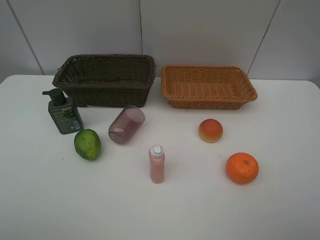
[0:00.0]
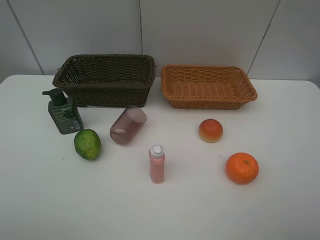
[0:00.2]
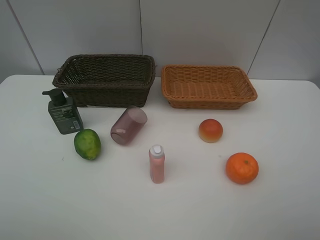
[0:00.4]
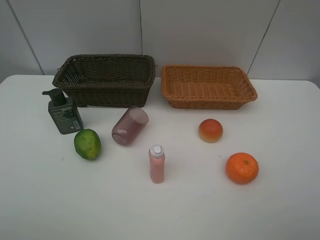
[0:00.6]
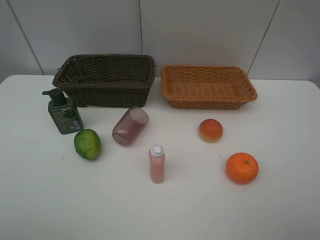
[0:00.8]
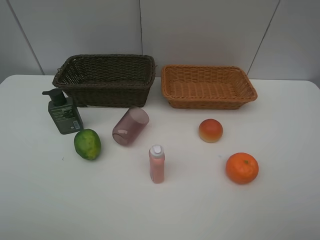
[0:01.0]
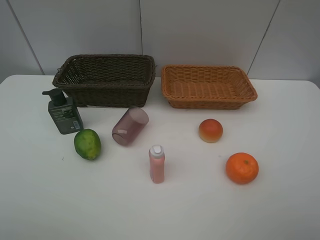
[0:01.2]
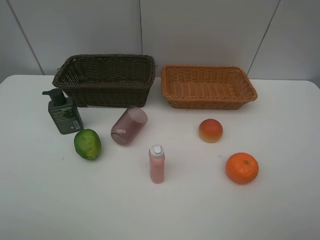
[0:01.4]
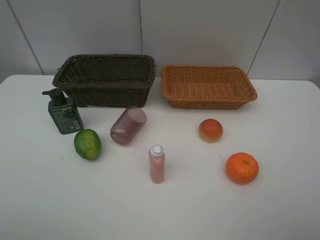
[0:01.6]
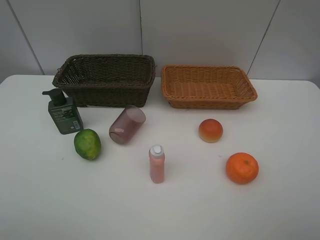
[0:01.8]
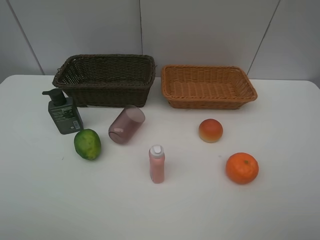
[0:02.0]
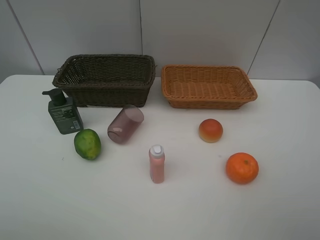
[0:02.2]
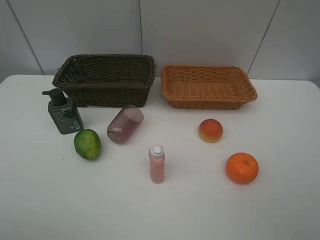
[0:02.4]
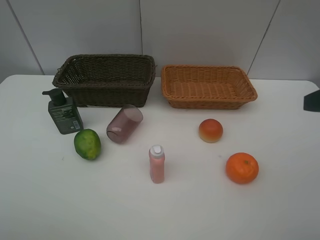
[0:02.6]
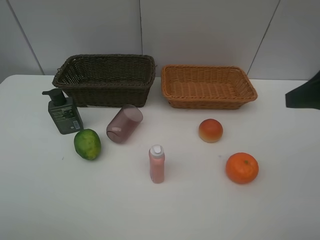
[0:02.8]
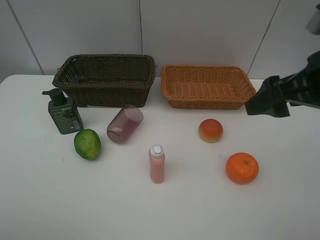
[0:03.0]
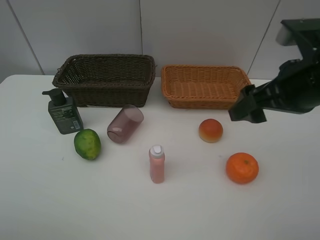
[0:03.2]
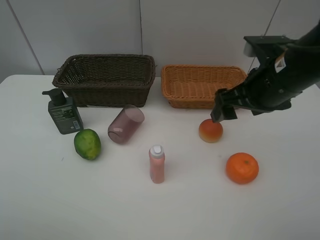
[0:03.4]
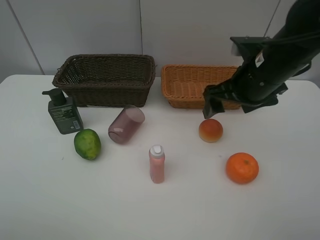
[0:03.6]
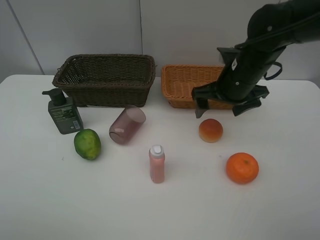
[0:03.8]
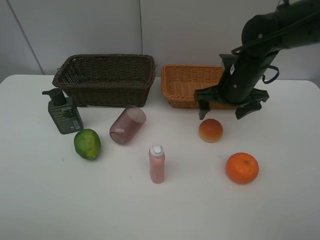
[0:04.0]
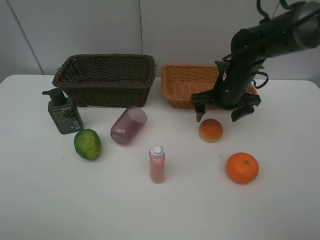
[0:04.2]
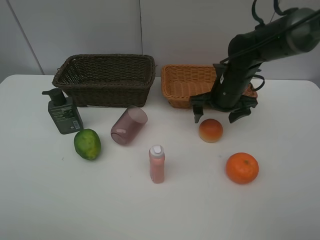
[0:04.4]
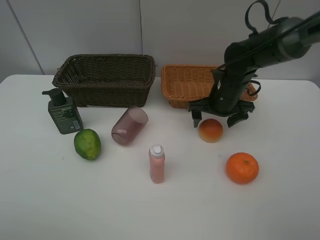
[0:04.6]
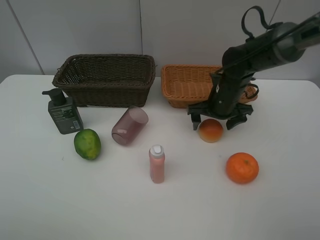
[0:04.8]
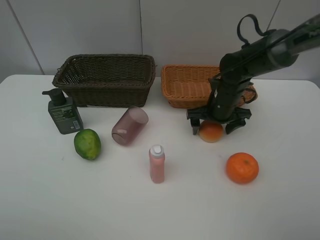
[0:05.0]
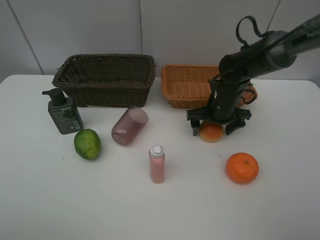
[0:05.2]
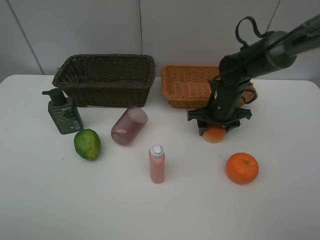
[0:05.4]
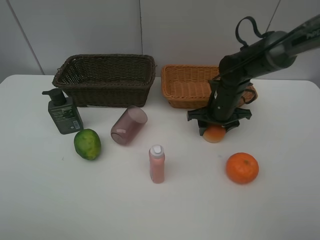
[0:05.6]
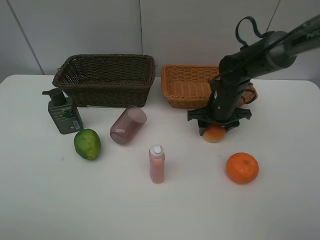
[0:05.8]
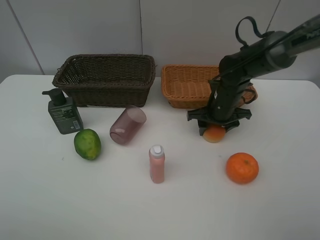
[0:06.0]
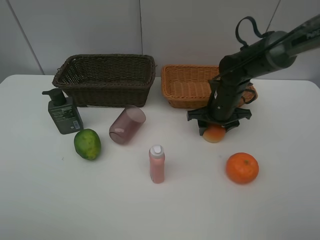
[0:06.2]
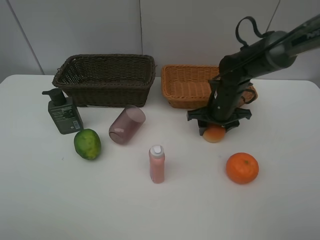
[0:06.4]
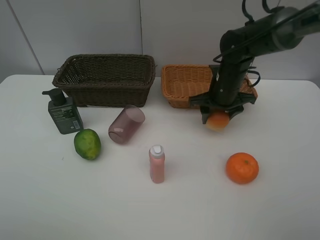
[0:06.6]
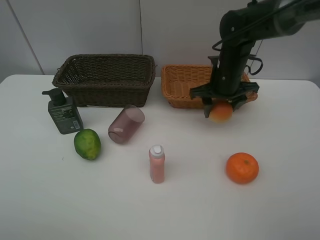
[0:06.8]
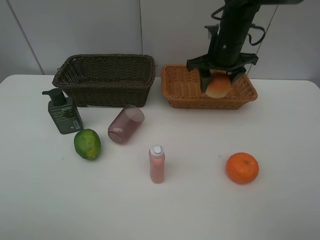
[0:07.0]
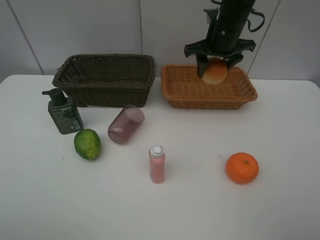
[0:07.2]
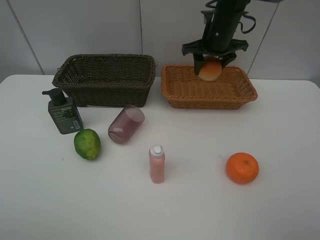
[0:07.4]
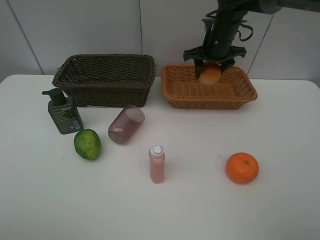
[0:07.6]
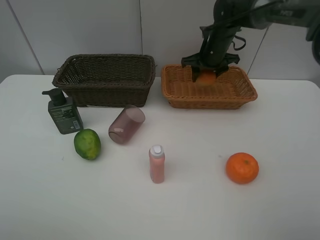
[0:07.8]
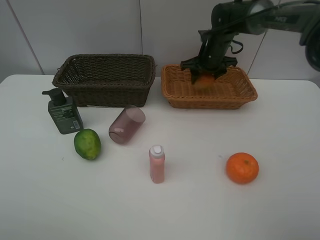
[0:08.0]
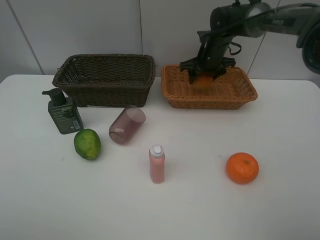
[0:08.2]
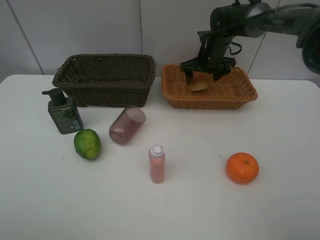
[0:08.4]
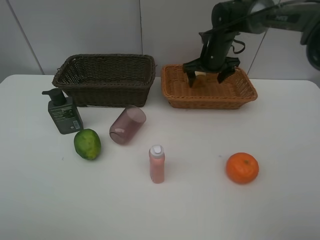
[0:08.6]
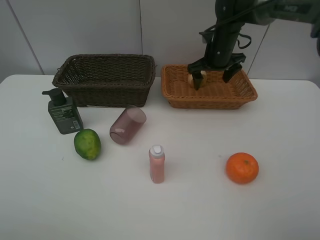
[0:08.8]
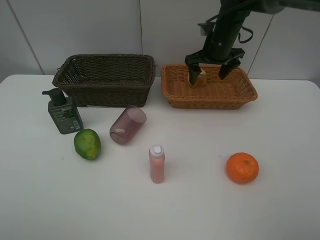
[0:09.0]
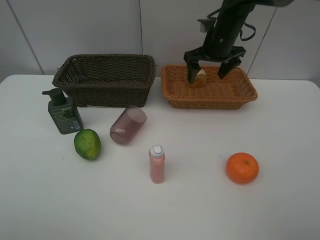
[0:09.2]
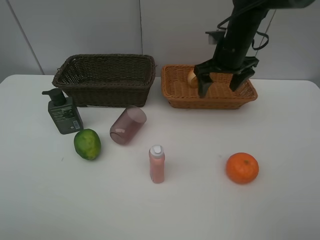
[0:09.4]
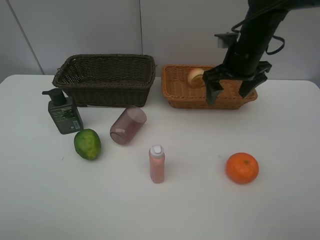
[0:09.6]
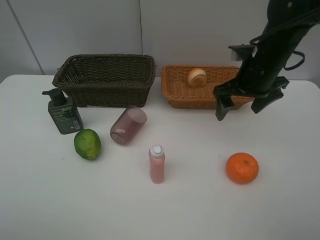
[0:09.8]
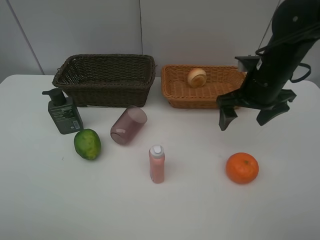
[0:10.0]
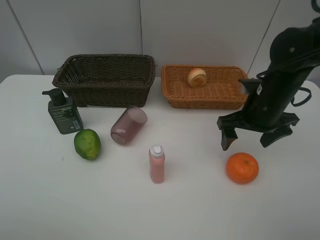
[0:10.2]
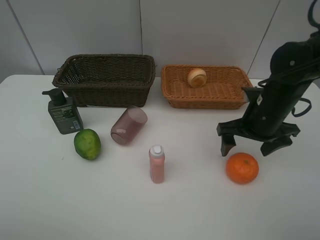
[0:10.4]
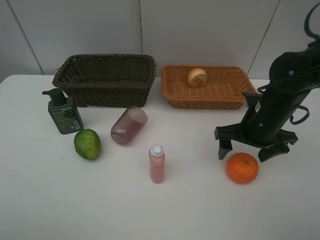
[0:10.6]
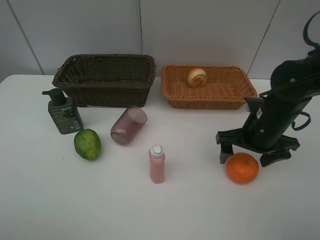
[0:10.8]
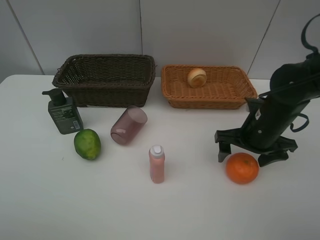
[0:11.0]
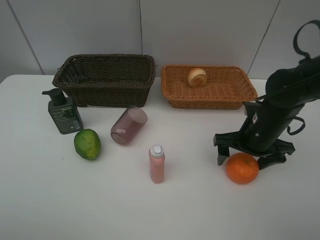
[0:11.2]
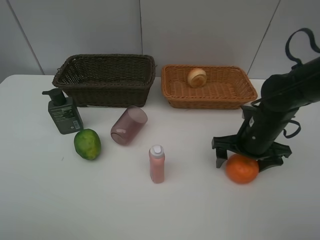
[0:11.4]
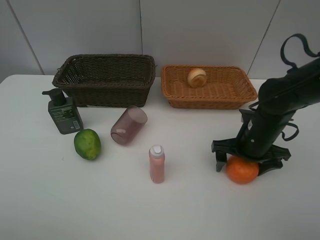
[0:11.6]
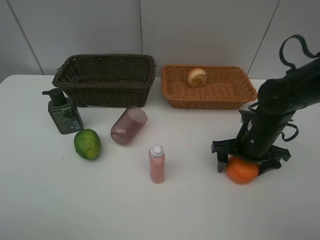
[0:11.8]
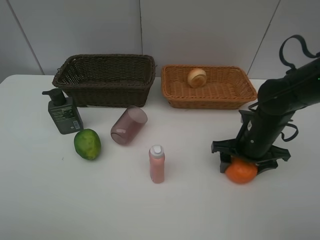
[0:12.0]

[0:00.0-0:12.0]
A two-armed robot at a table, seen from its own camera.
Task of the whole recording: place multiple objects separately in different baskets.
0:00.0 to 0:01.6: Neither gripper changes place.
0:01.6 to 0:03.0: The right gripper heads forward, covering approximately 20 cm.
0:03.0 to 0:04.4: The right gripper travels forward, downward and to the left by some 25 cm.
0:04.4 to 0:06.0: The right gripper closes up.
0:06.0 to 0:07.6: The right gripper is displaced upward and forward by about 15 cm.
0:07.6 to 0:09.0: The right gripper opens up.
0:09.0 to 0:10.4: The right gripper shifts about 20 cm backward.
0:10.4 to 0:12.0: The right gripper shifts about 5 cm downward.

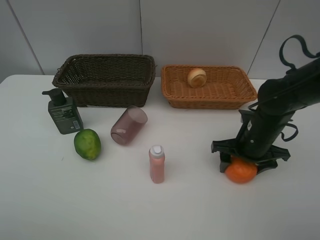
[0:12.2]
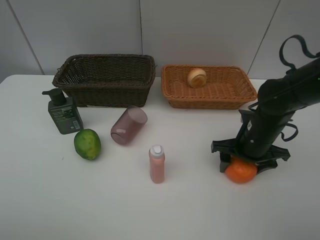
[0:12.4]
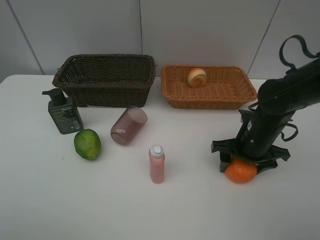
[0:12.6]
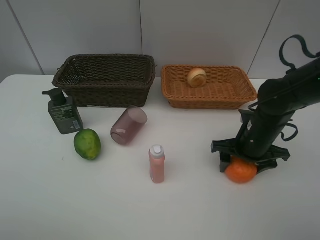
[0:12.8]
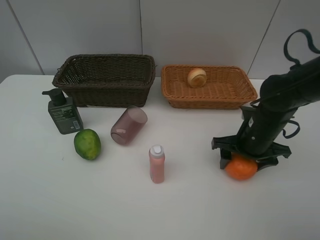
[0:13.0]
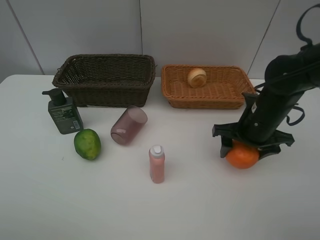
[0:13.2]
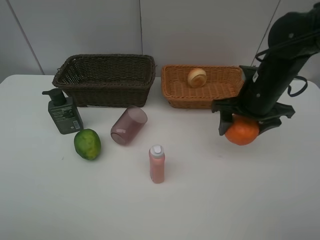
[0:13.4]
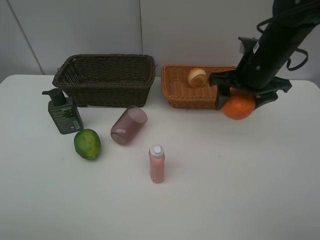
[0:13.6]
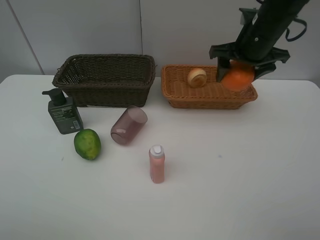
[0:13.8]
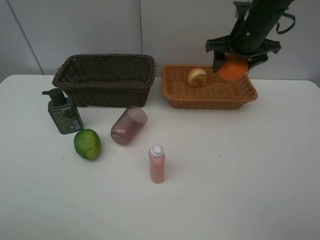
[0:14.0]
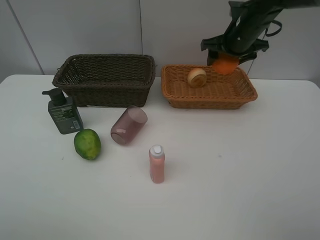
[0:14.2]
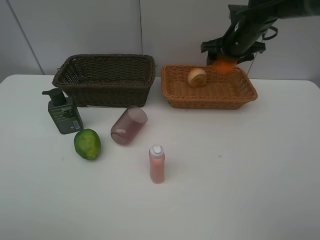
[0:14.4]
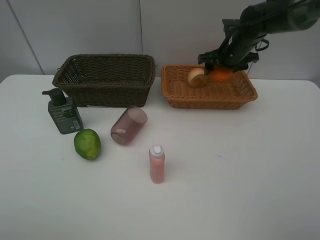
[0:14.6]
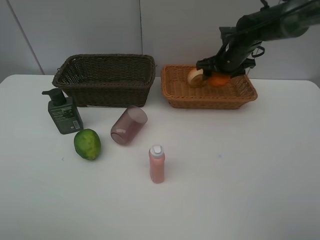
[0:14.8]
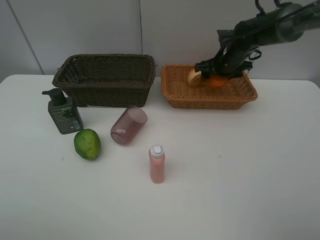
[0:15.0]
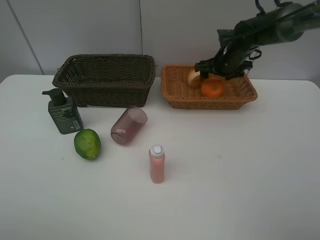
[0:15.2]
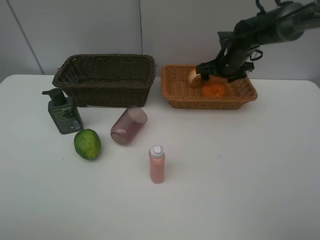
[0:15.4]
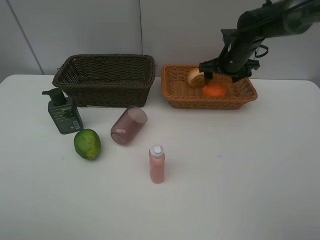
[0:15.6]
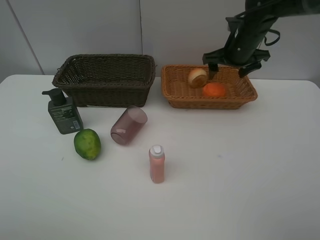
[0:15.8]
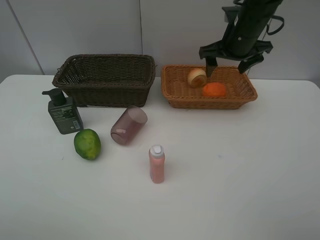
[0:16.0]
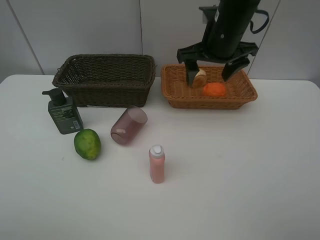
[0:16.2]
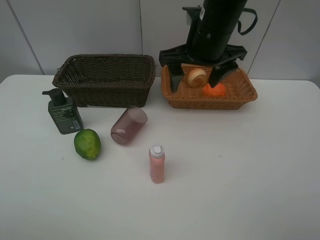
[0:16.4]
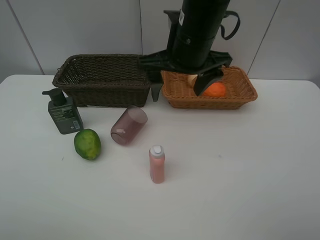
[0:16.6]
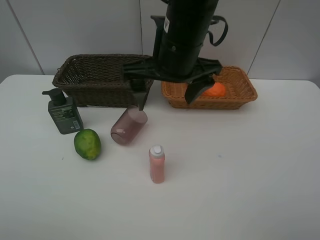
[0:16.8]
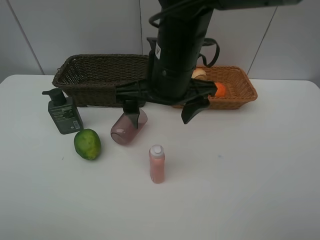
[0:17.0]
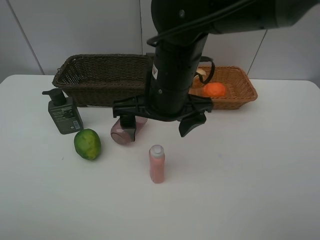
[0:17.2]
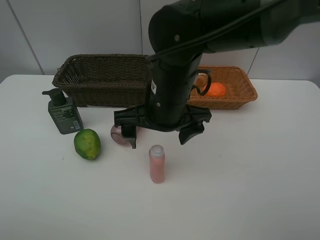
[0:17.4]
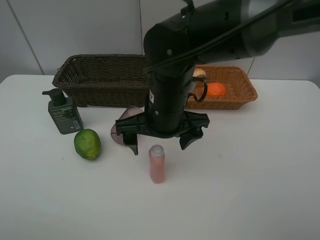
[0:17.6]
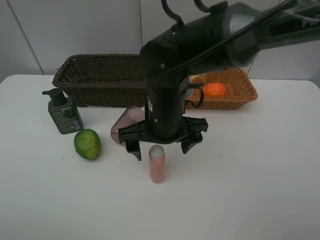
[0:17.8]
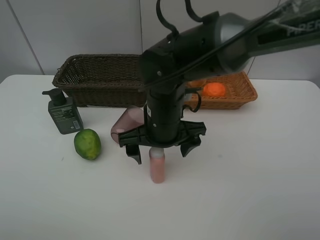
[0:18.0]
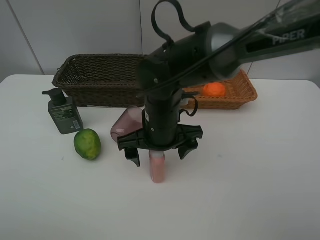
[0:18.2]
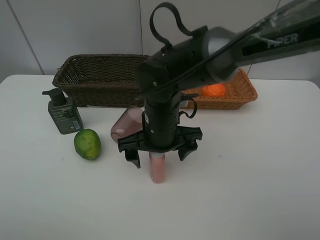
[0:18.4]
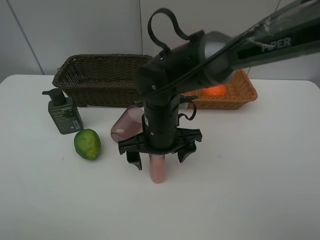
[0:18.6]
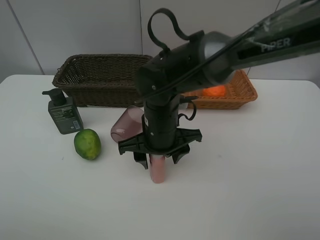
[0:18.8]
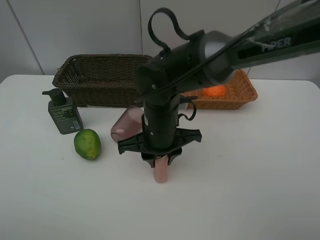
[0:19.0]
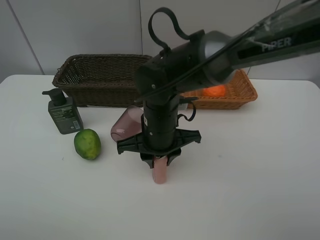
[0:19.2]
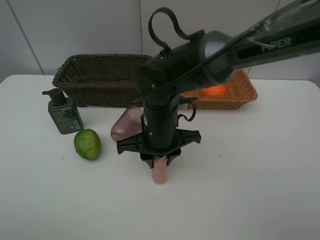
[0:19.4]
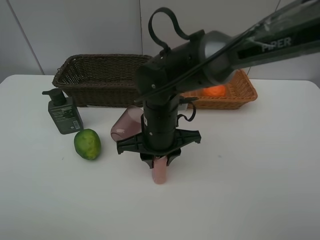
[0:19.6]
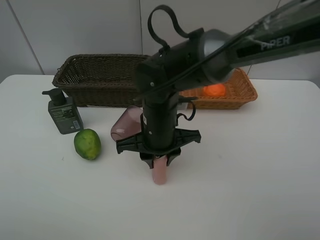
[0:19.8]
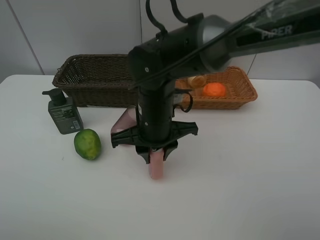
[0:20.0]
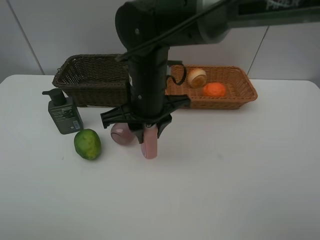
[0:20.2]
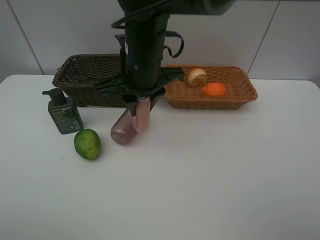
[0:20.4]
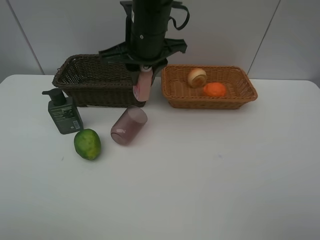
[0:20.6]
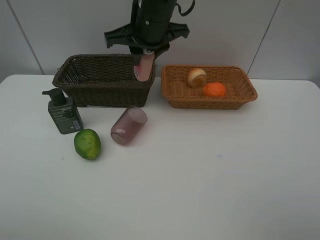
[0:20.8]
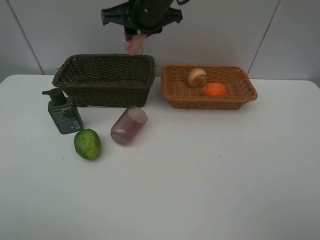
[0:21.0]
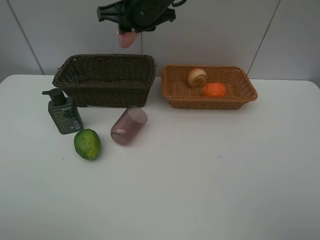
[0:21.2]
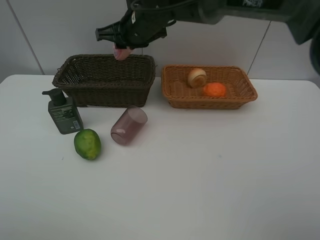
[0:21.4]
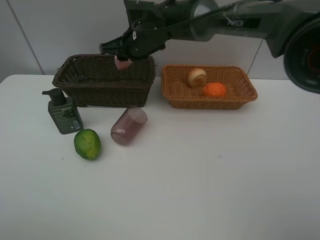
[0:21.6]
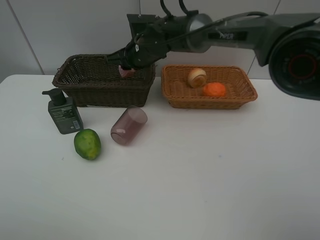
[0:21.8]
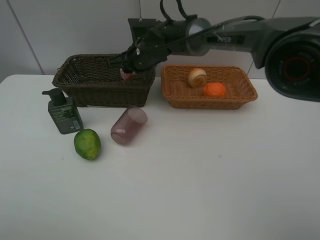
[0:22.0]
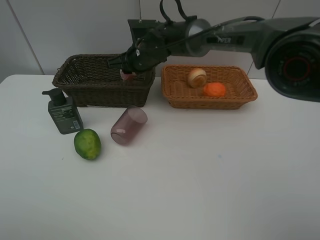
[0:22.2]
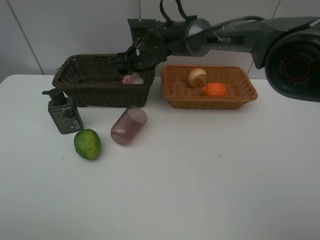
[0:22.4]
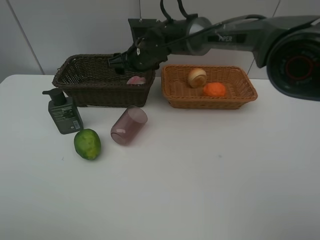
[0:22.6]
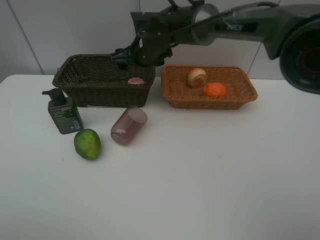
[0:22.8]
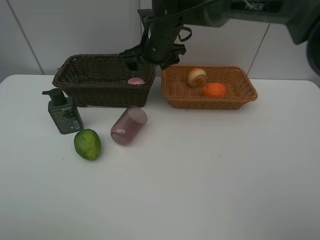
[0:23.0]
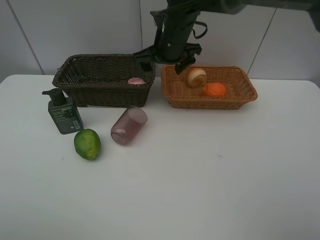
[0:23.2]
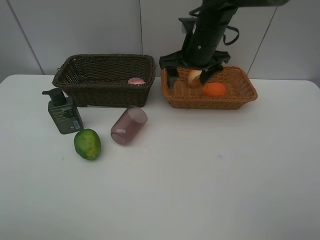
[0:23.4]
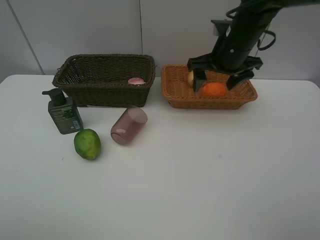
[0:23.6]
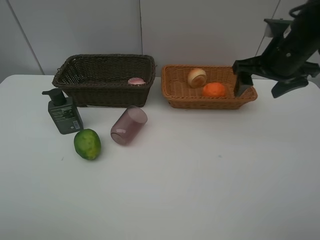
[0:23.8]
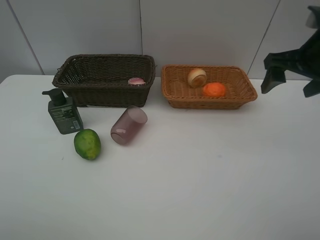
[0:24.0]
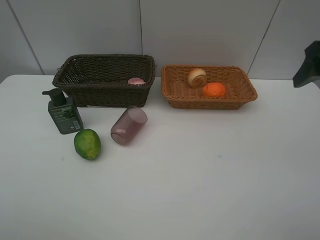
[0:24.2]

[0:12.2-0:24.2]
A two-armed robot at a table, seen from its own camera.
Task of the whole recording: place multiple objects separately in different baskets.
0:12.2 to 0:13.8: The right gripper heads upward and forward, covering approximately 20 cm.
0:13.8 to 0:15.2: The right gripper is displaced forward and downward by roughly 15 cm.
0:15.2 to 0:16.6: The right gripper moves backward, to the left and upward, approximately 25 cm.
0:16.6 to 0:18.2: The right gripper travels downward by approximately 15 cm.
0:18.2 to 0:19.8: The right gripper closes.
0:19.8 to 0:21.2: The right gripper is displaced forward and upward by some 20 cm.
0:21.2 to 0:22.6: The right gripper travels downward by roughly 10 cm, and opens up.
0:22.6 to 0:24.2: The right gripper goes some 40 cm to the right, backward and upward.
